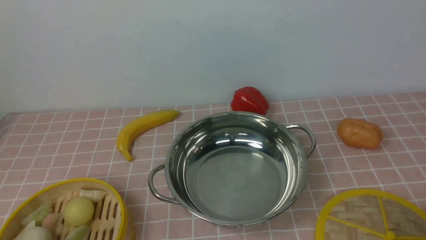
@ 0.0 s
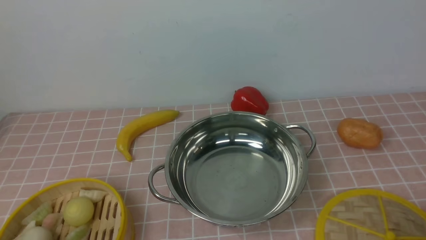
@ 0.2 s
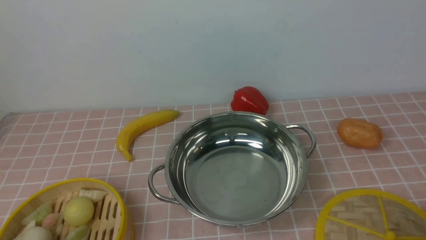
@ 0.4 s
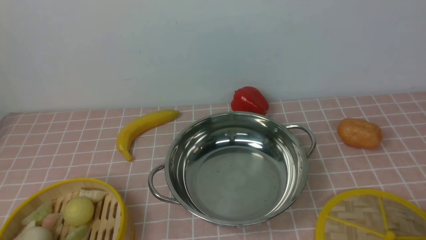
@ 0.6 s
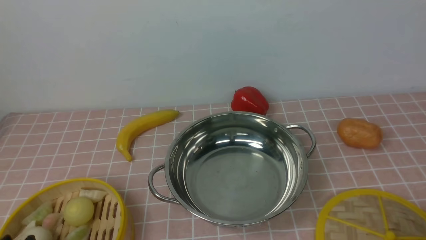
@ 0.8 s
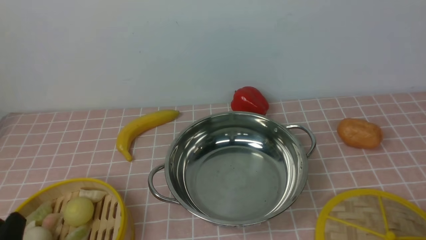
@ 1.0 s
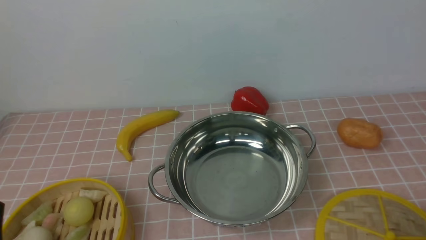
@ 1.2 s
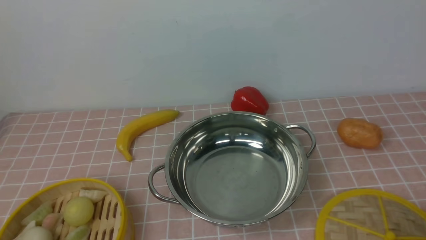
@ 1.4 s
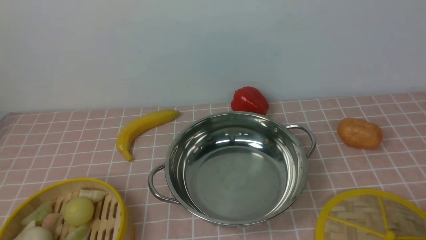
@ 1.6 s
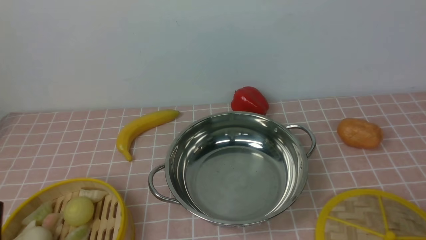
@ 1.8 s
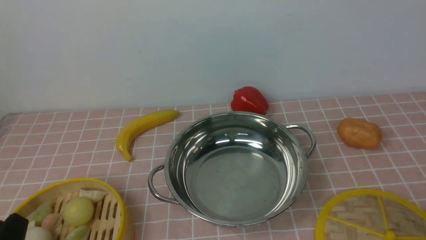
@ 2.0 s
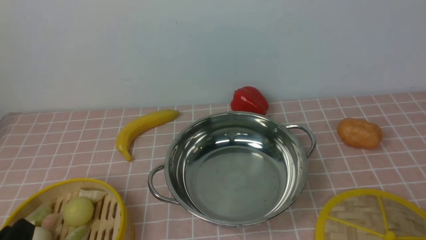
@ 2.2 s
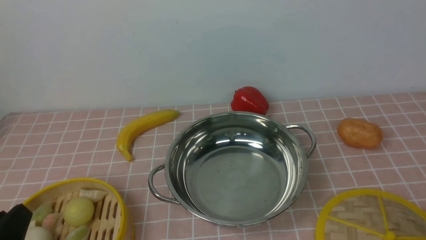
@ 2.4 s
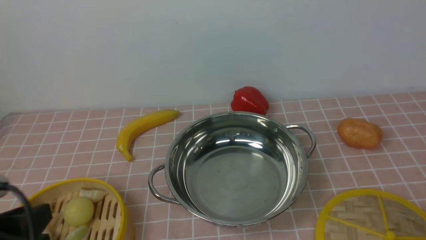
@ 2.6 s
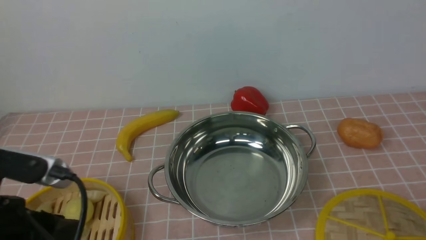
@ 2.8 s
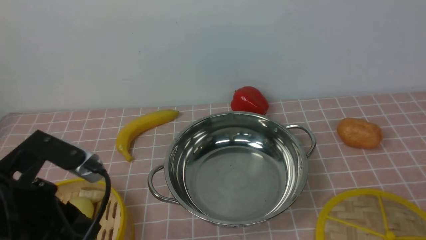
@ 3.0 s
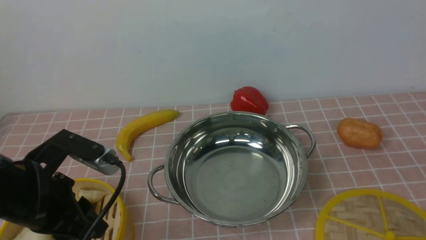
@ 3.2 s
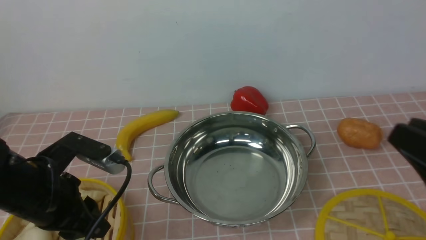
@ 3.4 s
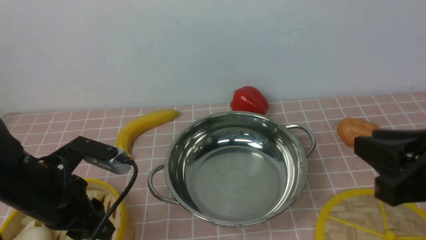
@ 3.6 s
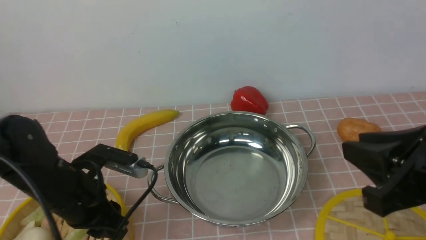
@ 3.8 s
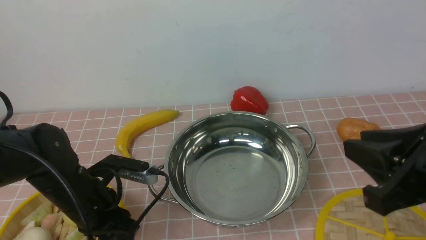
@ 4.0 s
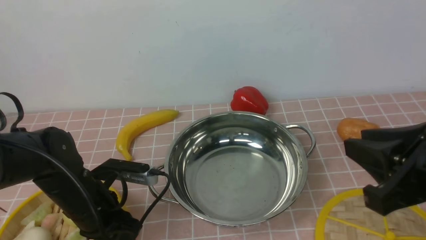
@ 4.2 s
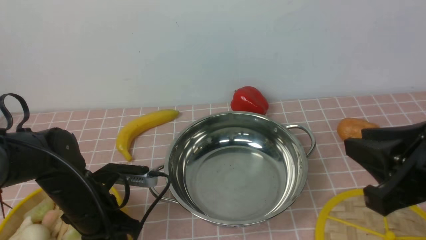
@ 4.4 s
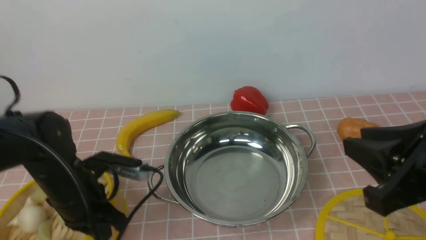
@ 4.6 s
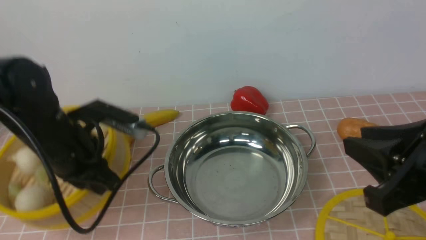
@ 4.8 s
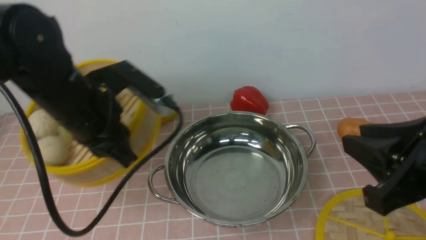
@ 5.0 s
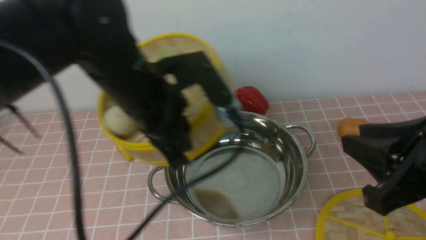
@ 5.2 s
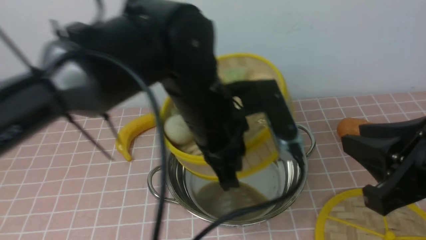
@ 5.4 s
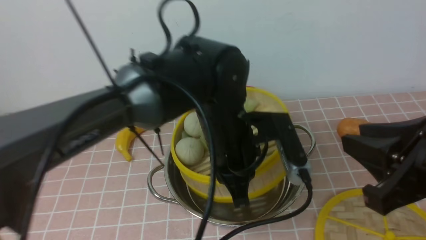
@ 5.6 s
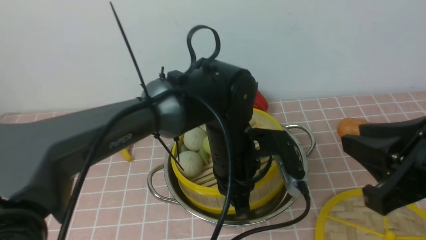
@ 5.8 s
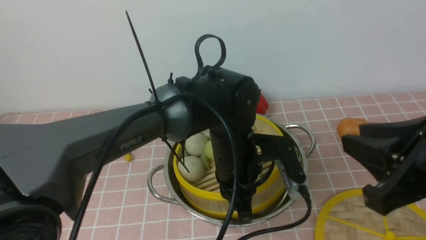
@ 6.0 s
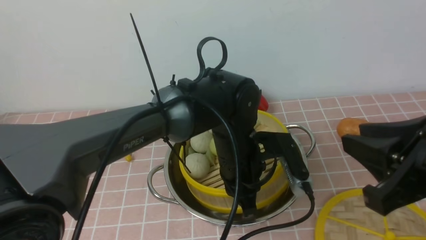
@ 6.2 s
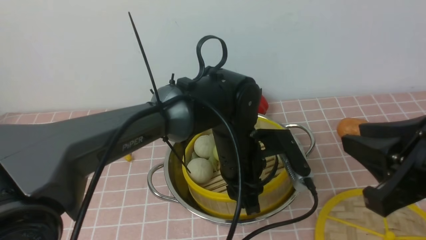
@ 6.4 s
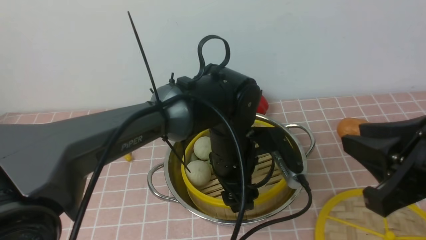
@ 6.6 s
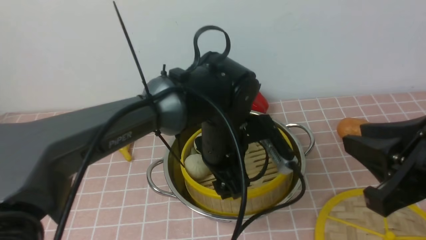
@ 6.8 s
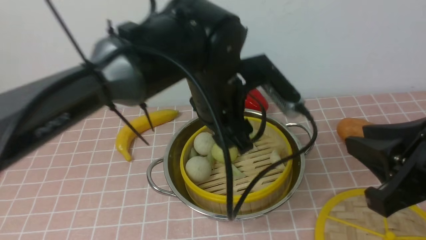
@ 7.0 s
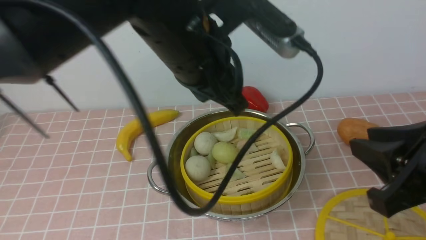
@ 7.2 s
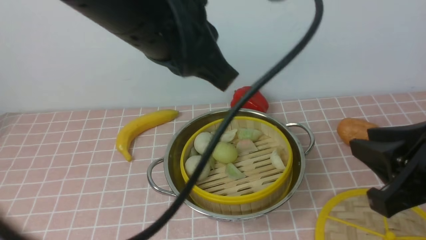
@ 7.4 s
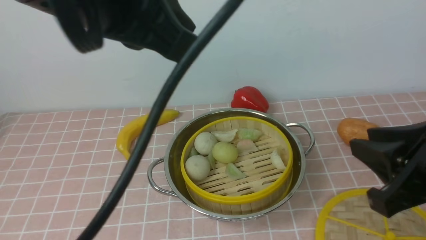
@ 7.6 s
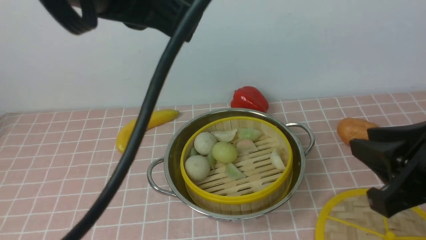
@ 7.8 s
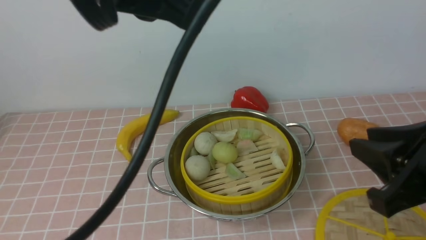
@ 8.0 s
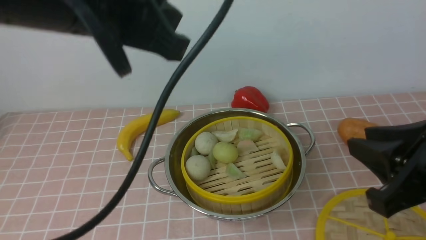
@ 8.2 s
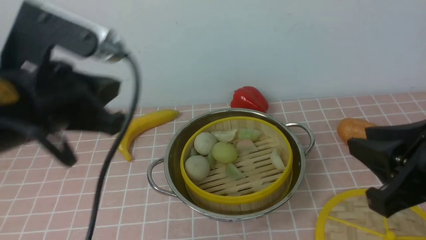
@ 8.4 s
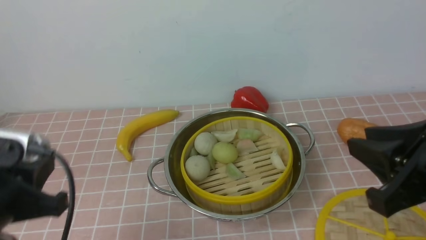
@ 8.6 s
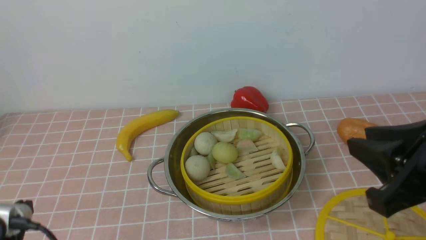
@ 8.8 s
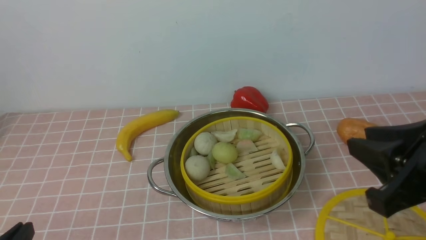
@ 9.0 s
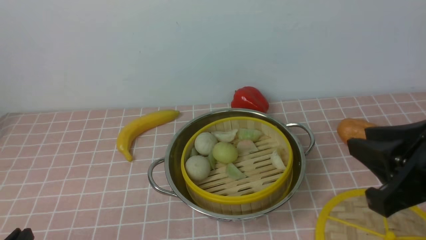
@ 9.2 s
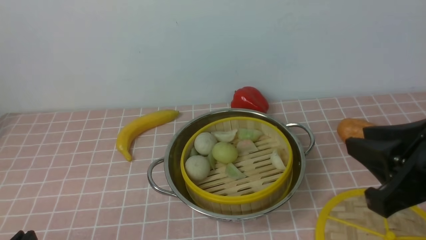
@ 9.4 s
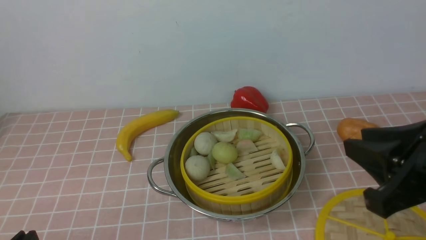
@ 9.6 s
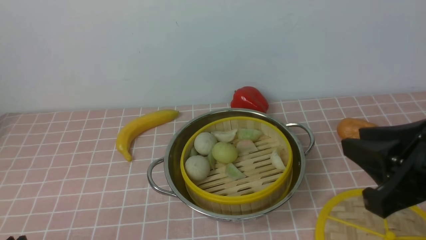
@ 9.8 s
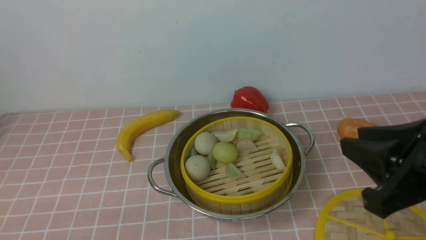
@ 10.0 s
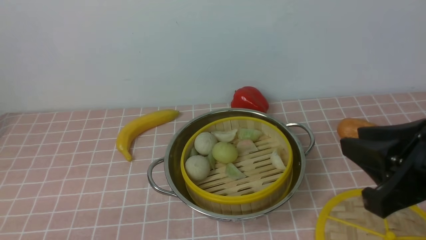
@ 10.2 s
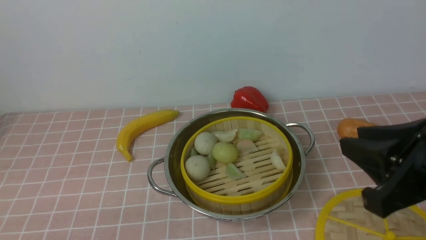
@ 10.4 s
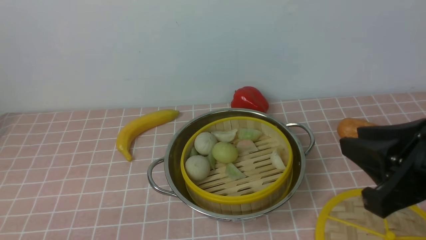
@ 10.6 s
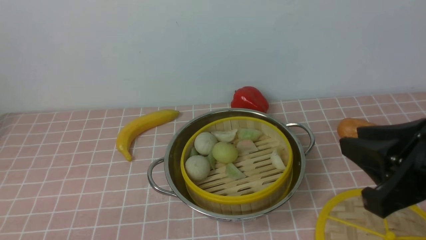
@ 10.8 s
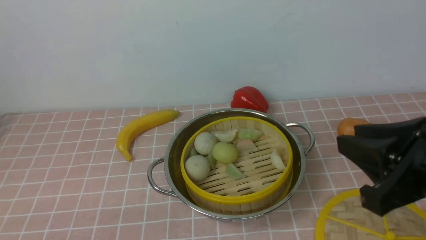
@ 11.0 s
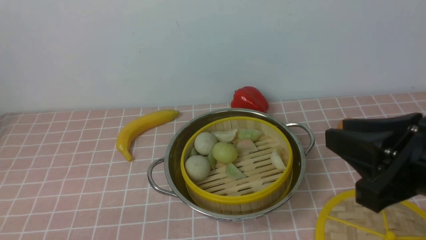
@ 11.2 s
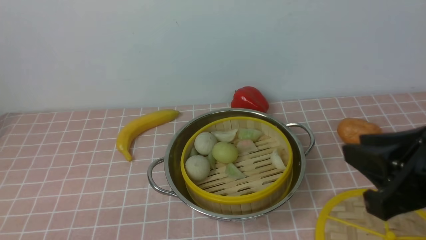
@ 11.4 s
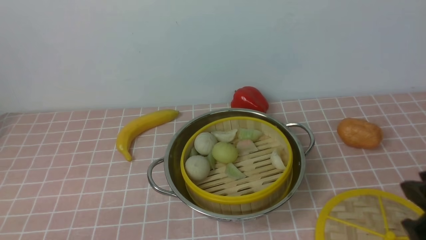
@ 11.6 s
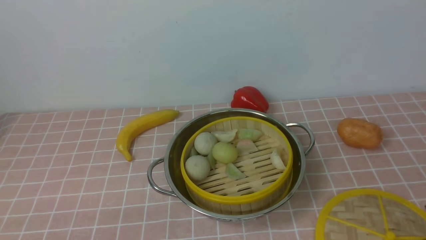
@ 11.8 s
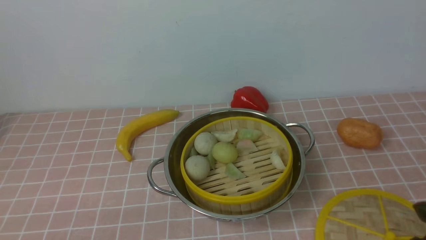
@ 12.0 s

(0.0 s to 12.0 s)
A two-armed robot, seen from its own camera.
Task of the whole recording: place the steamer in the pot on the pink tablecloth, and put the lid on the steamer.
Step, 0.0 s - 4.4 s: use the left arm to lift the steamer closest to it.
Step, 4.6 s - 6.8 s: use the left arm to put the steamer into the iron steamer pot in the middle.
1.6 s - 3.0 s: The left gripper is displaced forward and upward by roughly 10 cm.
3.0 s - 4.4 s: The right gripper goes roughly 15 cm to the left, upward and forward; the left gripper travels downward and forward by roughly 15 cm, and closes its fingers.
4.4 s - 6.0 s: The left gripper moves to the right, about 20 cm.
6.0 s - 7.6 s: The left gripper moves upward, about 25 cm, and opens, then closes once more.
7.6 s - 9.0 s: The left gripper is displaced downward, to the left and backward by roughly 35 cm.
9.0 s - 10.4 s: There are only small adjustments of the grippers.
10.4 s - 12.0 s: The right gripper ends up some 5 cm from where it was.

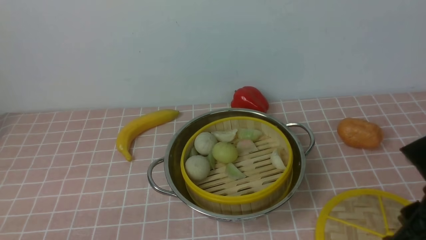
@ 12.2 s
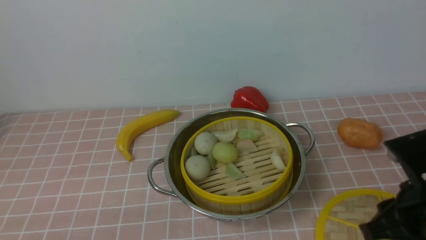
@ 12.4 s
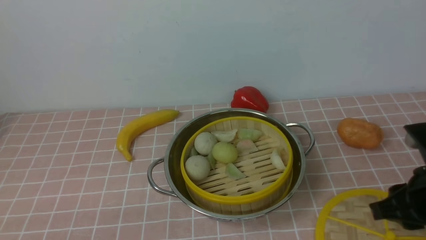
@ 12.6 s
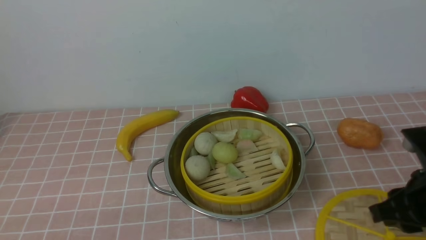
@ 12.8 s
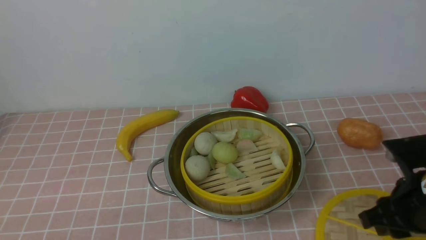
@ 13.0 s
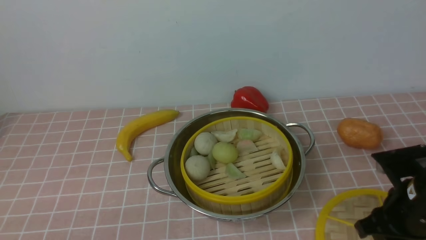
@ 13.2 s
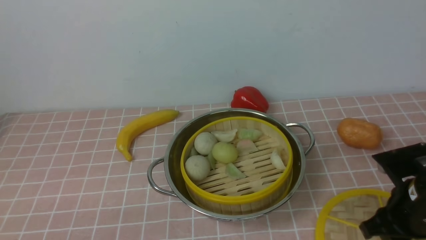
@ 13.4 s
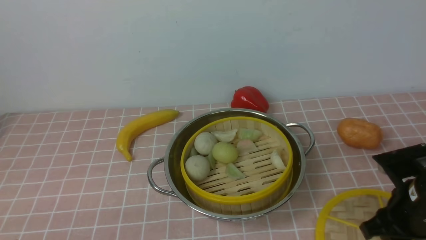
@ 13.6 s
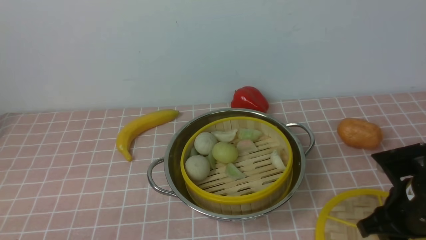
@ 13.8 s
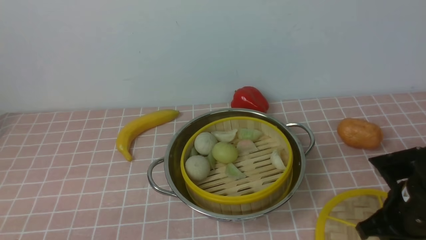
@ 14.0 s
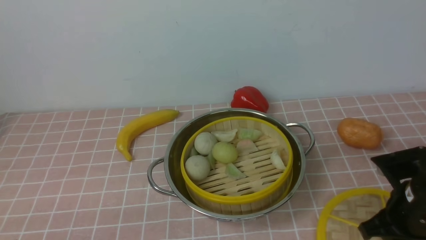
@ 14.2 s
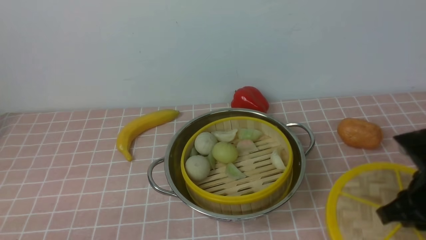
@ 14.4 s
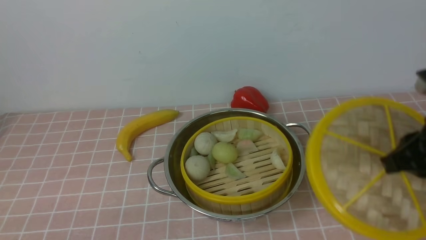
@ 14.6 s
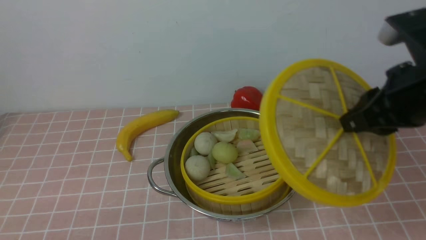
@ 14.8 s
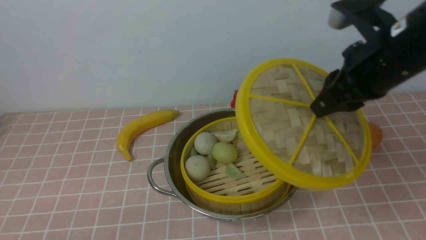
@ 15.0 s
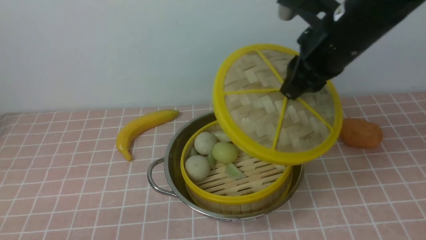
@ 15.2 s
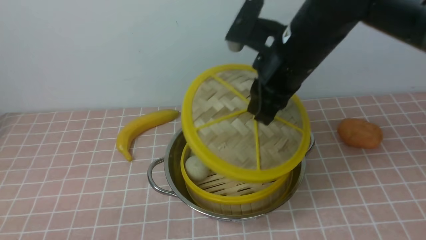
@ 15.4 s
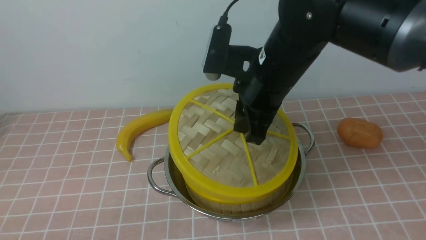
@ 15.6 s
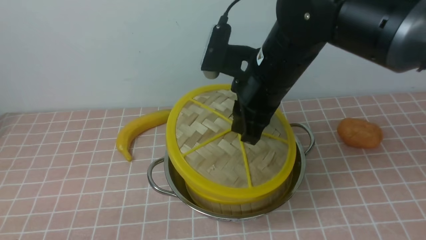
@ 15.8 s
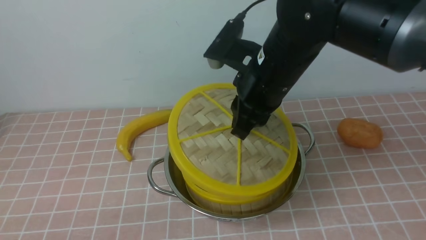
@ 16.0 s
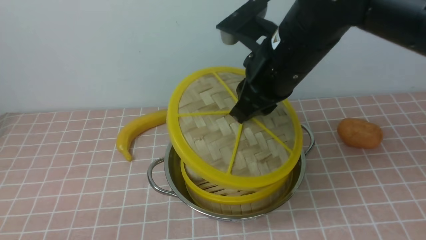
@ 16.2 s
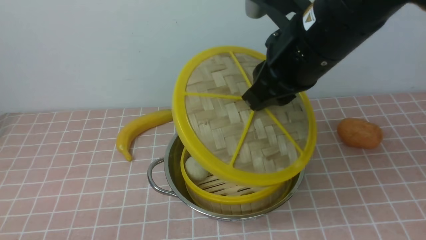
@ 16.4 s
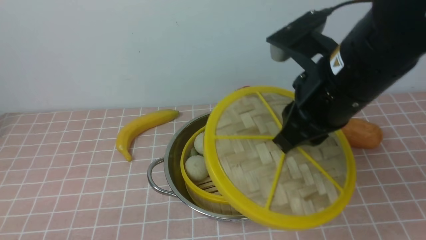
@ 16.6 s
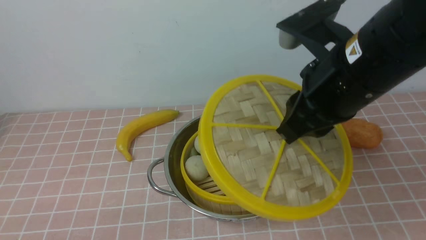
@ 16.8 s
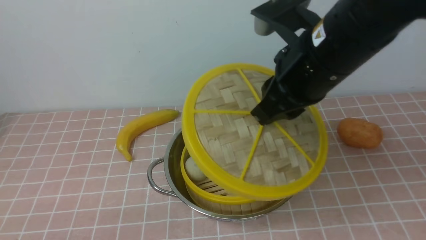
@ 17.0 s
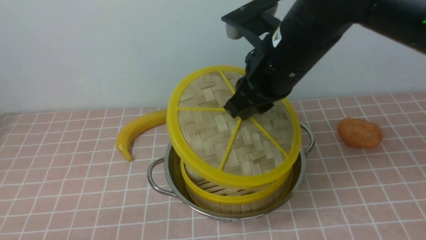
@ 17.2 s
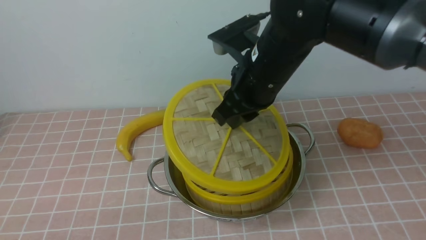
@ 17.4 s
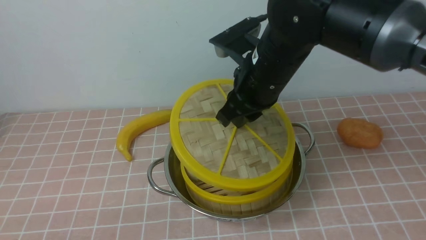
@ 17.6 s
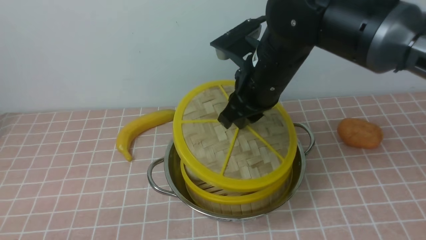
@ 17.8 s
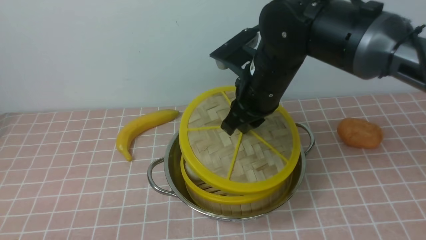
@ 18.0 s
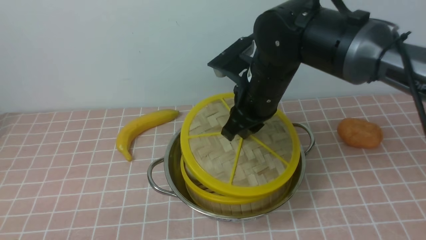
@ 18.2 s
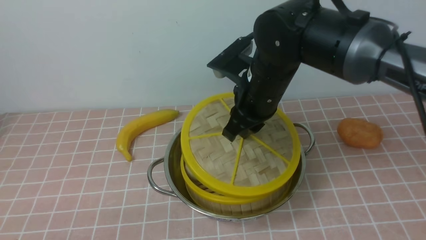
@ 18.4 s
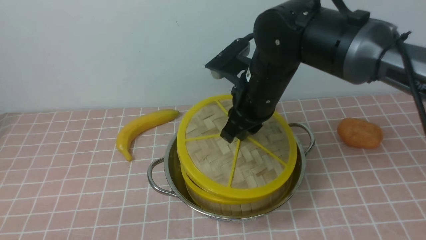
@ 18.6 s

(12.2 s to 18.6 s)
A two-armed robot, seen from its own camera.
Task of the whole recording: place the steamer in the pot on the pink tablecloth, and put the lid on the steamer.
Step, 12.2 s - 14.2 s: use the right arm to lift the lid of the steamer.
12.2 s - 13.8 s: The right gripper heads downward and forward, covering about 10 cm.
13.8 s - 15.4 s: The right gripper moves upward, to the left and forward, some 25 cm.
15.4 s - 17.0 s: The right gripper goes some 5 cm backward.
17.0 s - 18.6 s: The right gripper shifts about 10 cm downward and forward.
